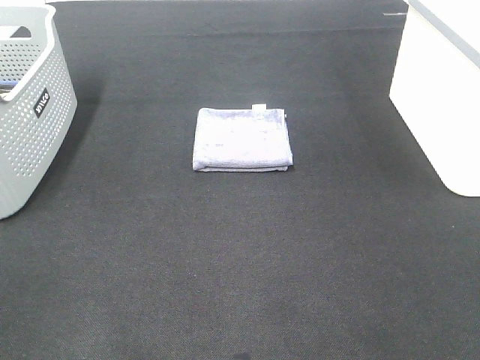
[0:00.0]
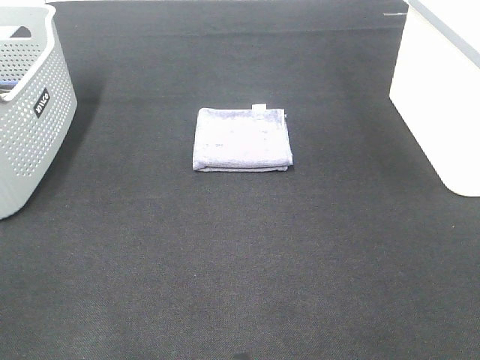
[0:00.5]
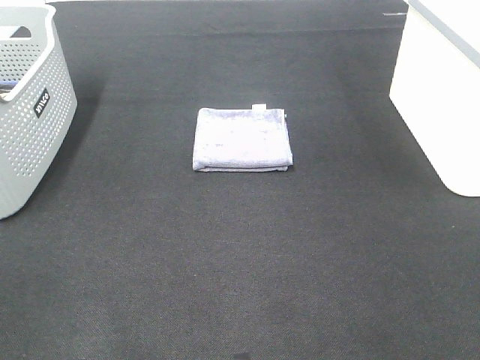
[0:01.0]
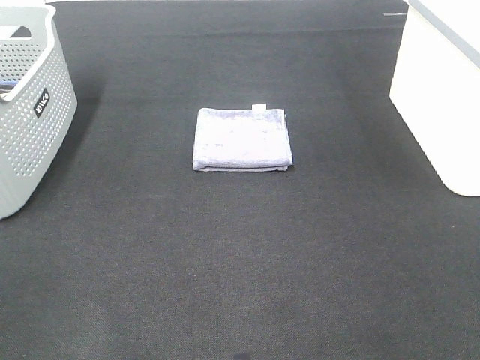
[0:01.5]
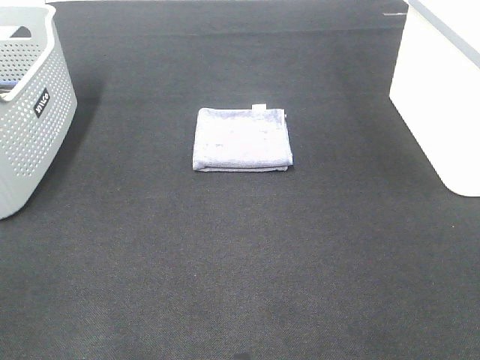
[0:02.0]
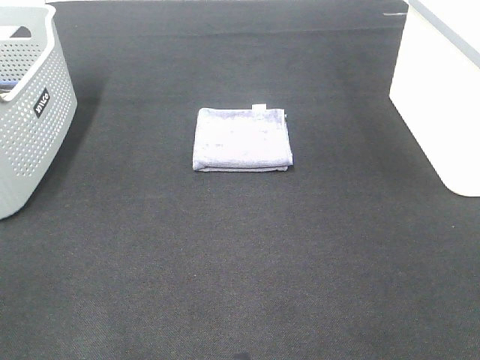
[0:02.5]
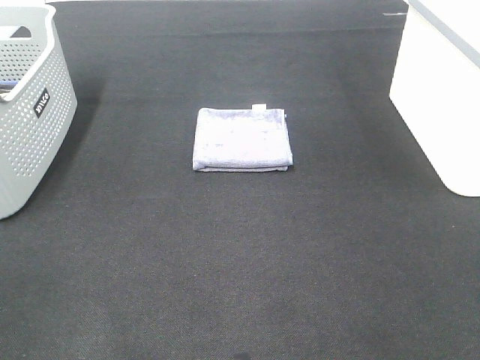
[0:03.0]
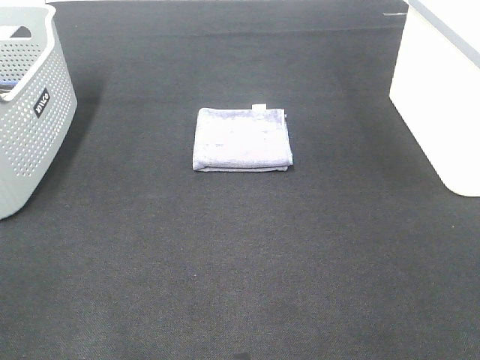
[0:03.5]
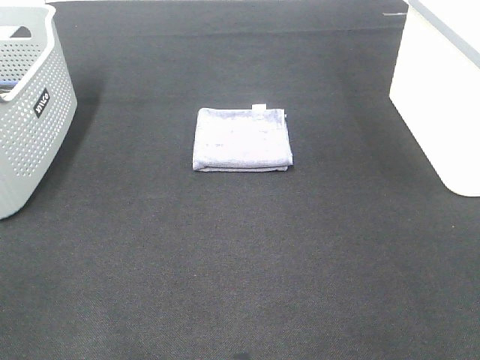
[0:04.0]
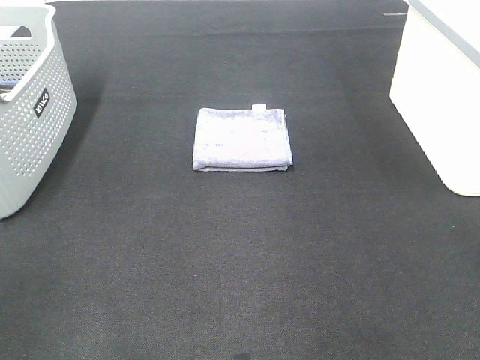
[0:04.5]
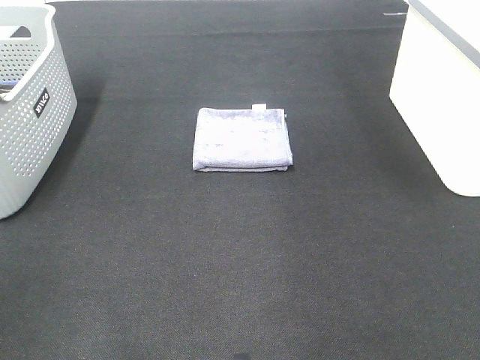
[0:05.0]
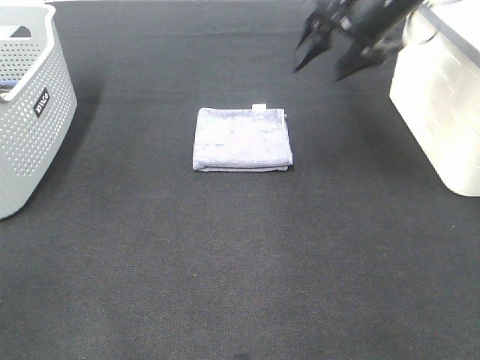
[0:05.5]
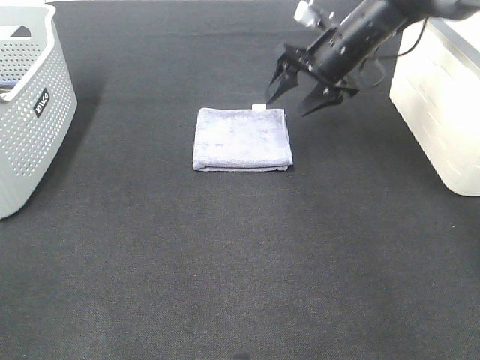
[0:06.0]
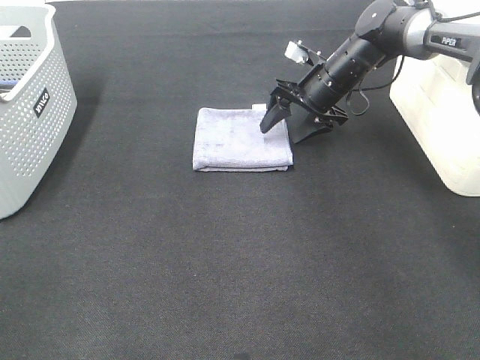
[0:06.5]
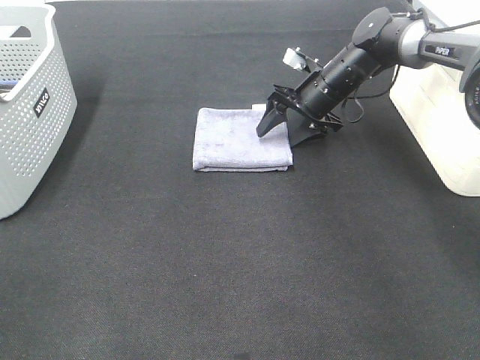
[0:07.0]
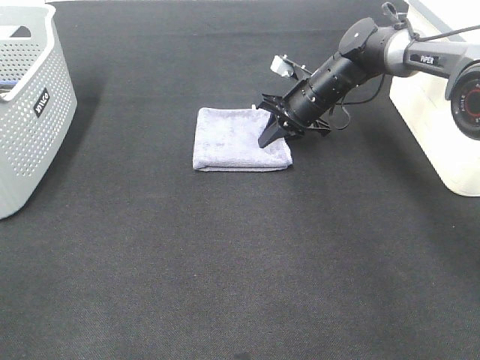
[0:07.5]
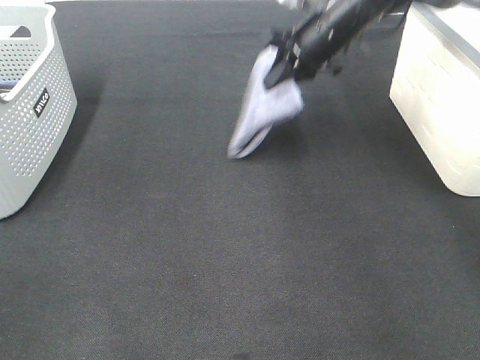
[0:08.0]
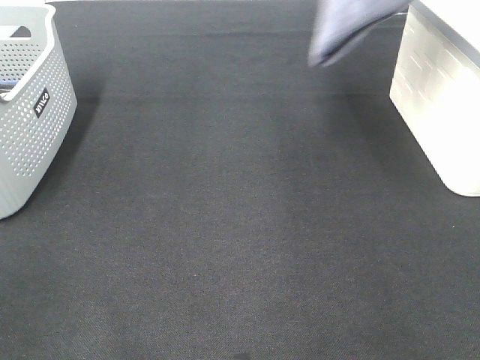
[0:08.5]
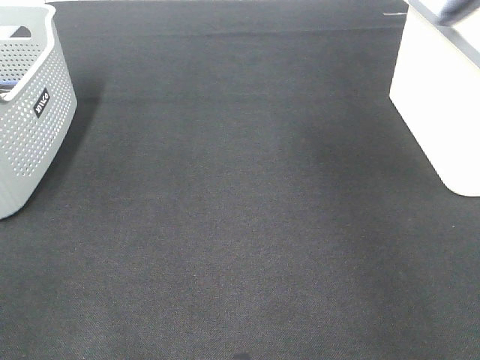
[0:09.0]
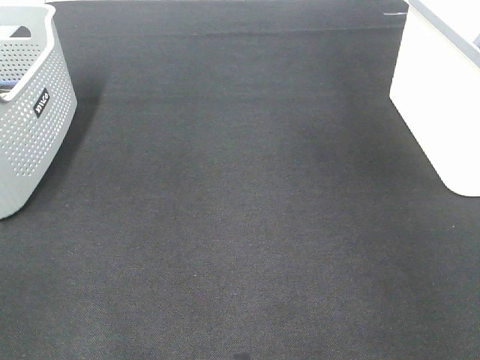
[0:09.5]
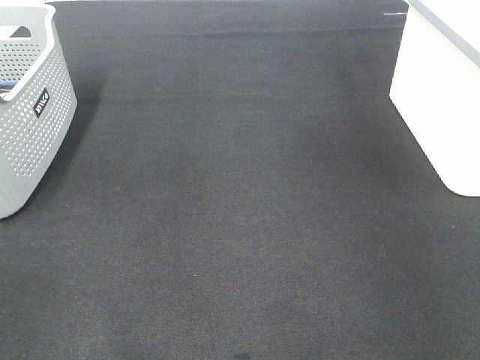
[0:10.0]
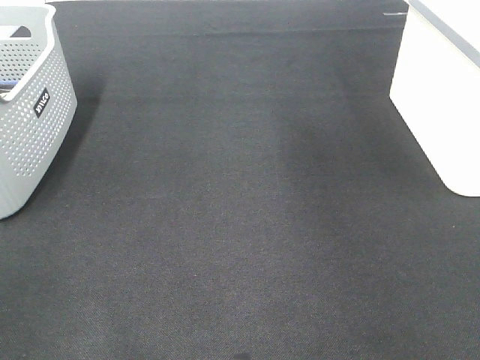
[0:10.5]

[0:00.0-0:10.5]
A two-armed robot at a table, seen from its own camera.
Step, 0:00.0 to 0:07.0: Right hand: grab the folded grey towel.
Step, 0:07.5 to 0:09.5: Right hand: place the grey towel in right basket.
0:00.0 to 0:02.0: Both grippers stay about where they are.
0:04.0 to 0:06.5: The right gripper moves forward and downward, roughly 50 cm.
0:06.5 to 0:08.5: The right gripper heads upward, covering some 25 cm, and closes.
0:08.5 to 0:10.5: The right gripper is displaced to the right by about 5 cm, and opens its fingers.

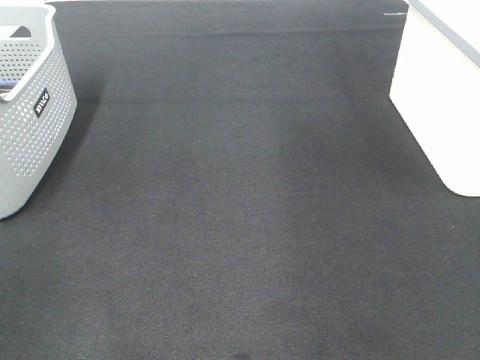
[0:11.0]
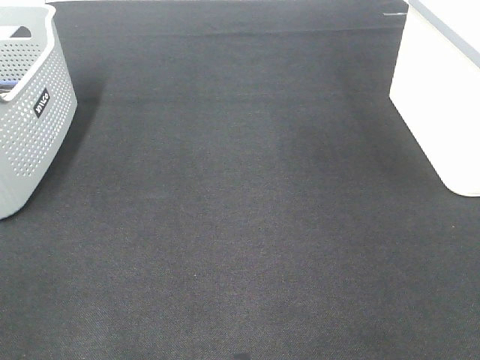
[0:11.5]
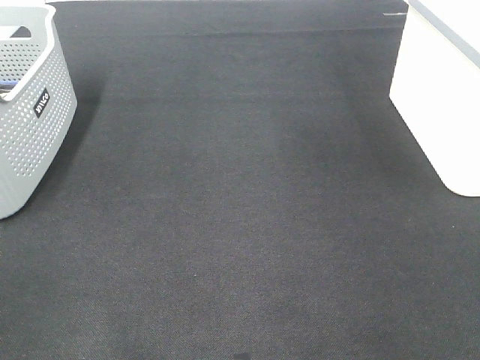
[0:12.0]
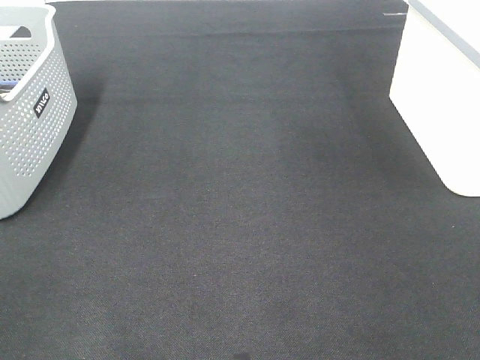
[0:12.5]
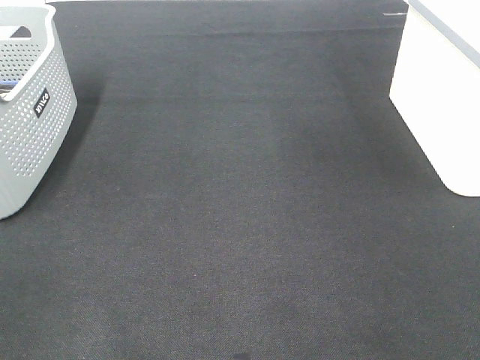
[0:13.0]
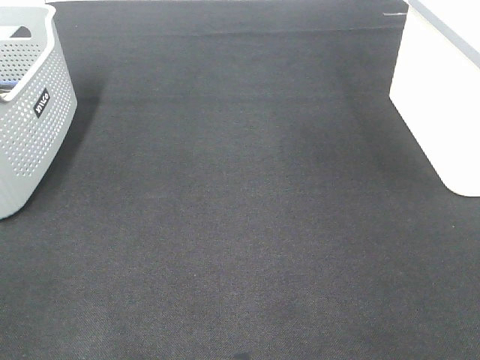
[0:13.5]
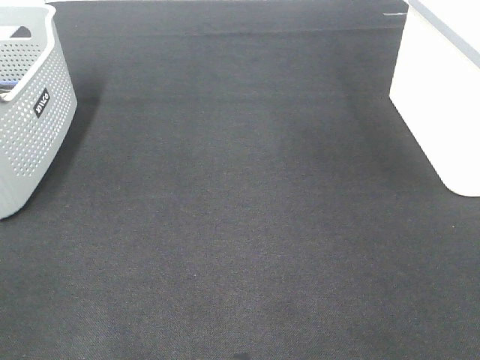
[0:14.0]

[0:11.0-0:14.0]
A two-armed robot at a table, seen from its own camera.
0:12.5 to 0:14.0: Both grippers stay put.

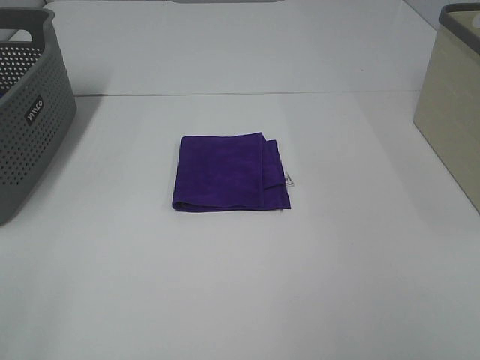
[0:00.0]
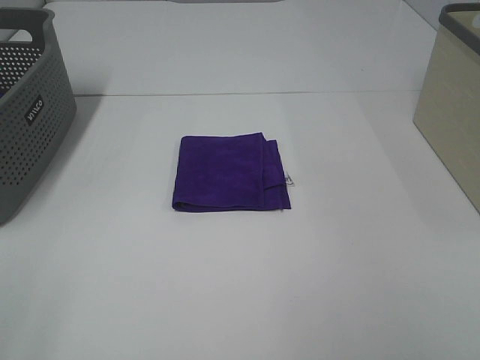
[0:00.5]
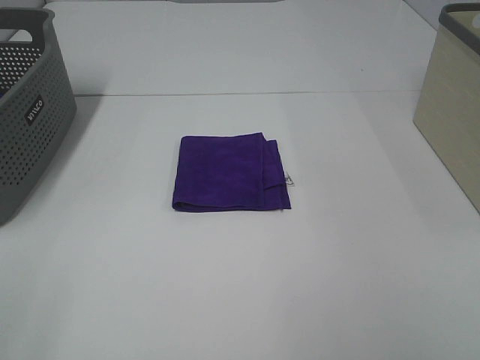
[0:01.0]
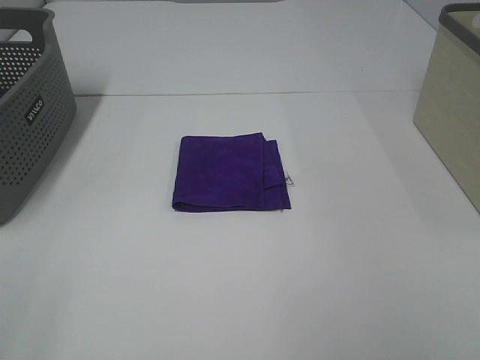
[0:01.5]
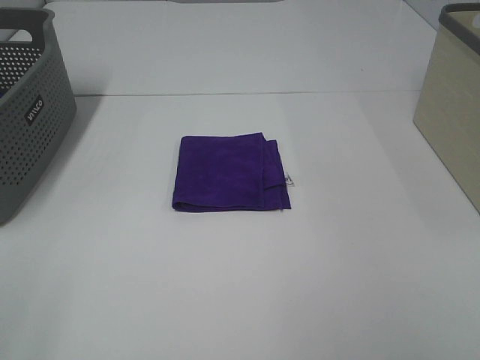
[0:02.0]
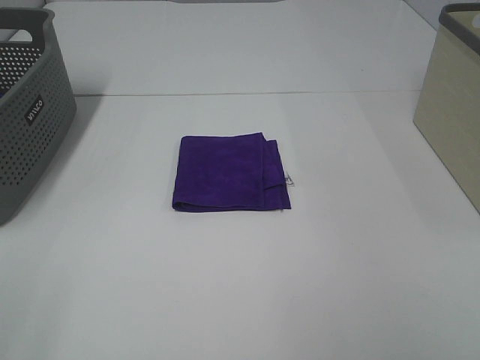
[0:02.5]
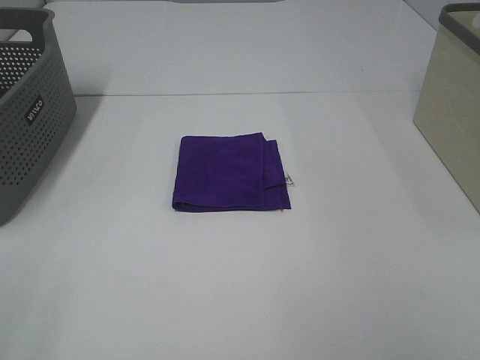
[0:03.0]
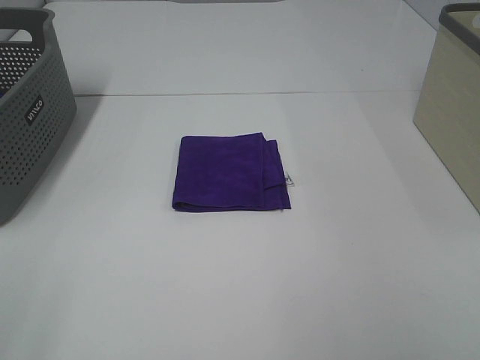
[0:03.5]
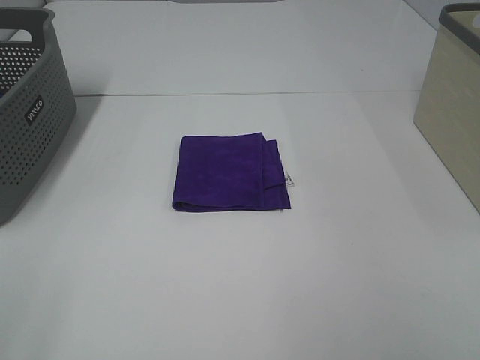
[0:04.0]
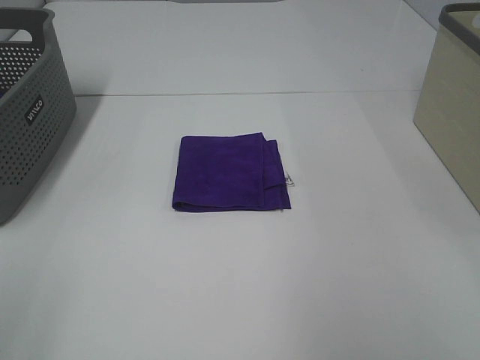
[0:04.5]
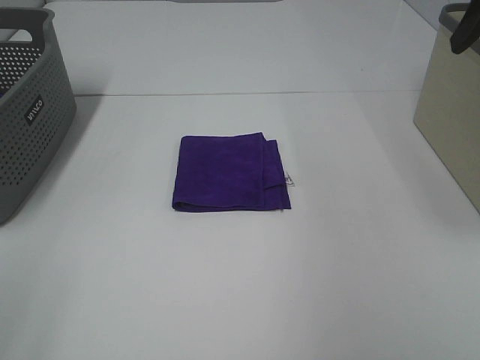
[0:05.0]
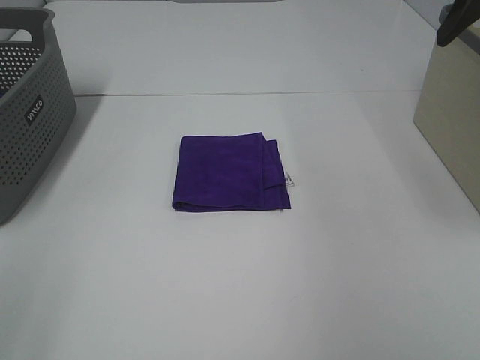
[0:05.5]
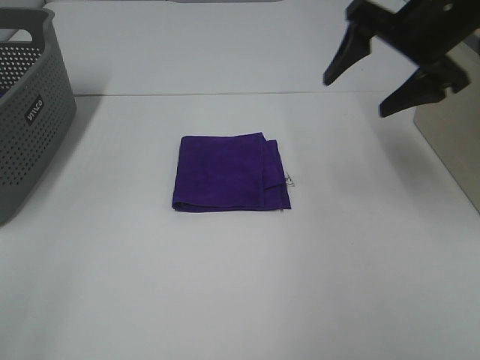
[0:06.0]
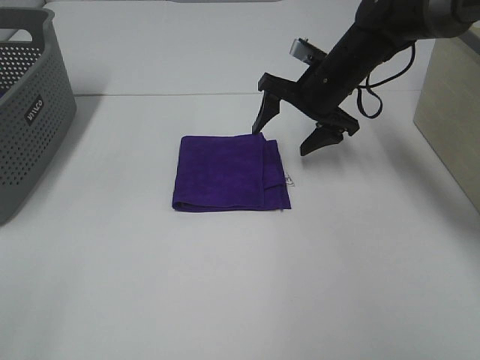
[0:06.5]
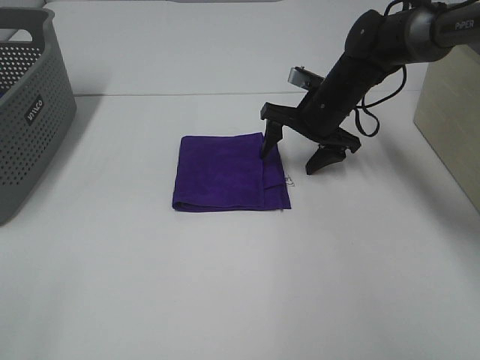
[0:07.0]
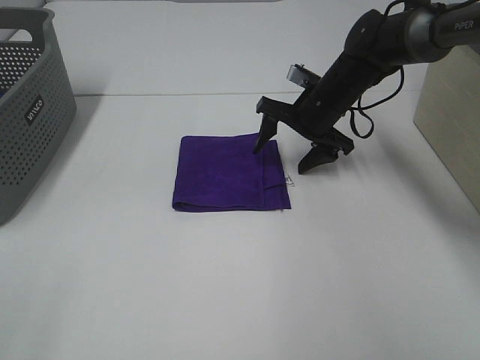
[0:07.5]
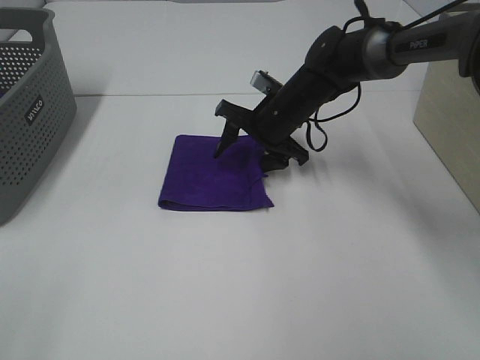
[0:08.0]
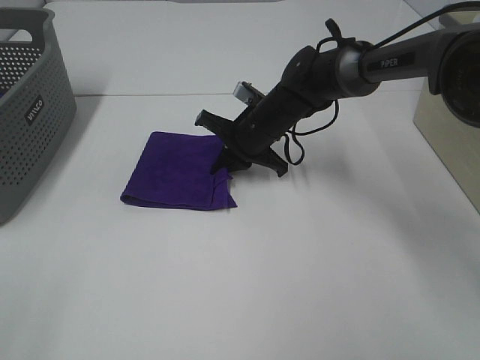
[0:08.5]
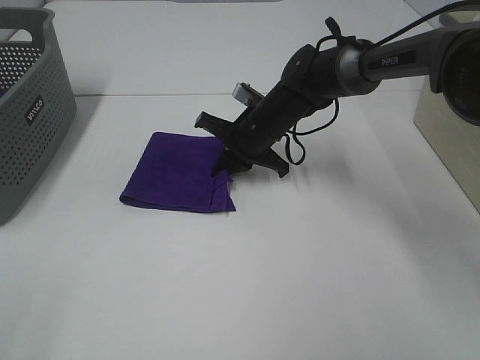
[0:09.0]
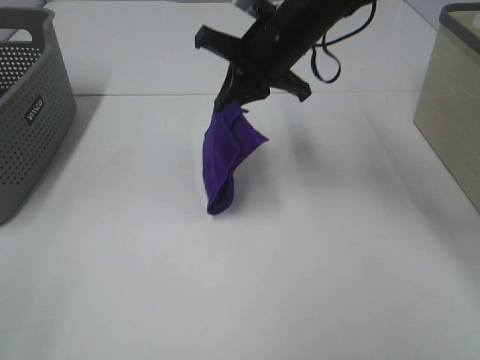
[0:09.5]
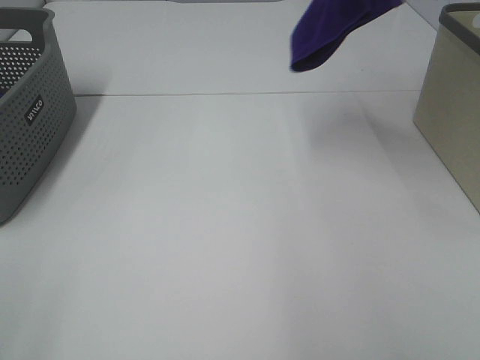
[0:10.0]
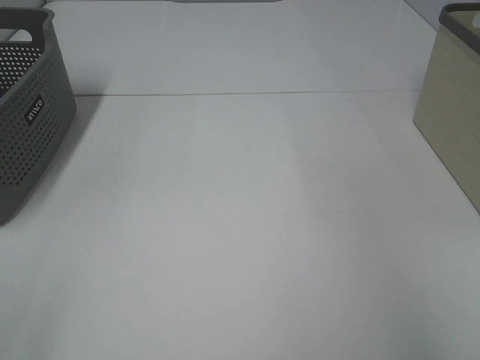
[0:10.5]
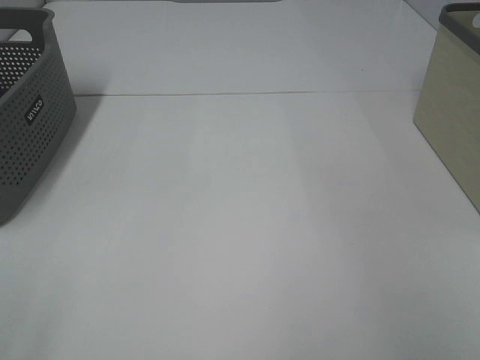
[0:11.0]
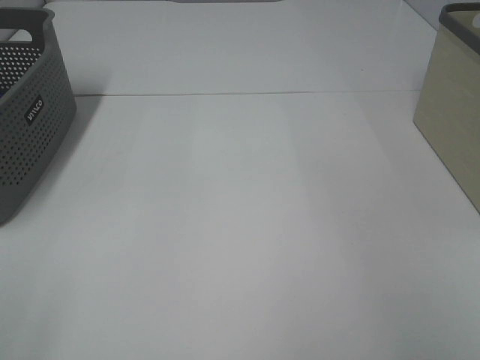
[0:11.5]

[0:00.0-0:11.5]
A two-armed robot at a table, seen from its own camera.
Step, 0:00.0 to 0:08.0: Right hand: grab the folded purple towel.
0:00.0 to 0:04.0: Neither gripper changes place.
0:04.0 to 0:06.0: The right gripper is displaced forward by some 35 cm.
0:06.0 to 0:07.5: The right gripper travels downward, forward and to the left by roughly 20 cm.
0:07.5 to 0:09.5: The right gripper heads upward and to the left, covering roughly 15 cm, and closes.
0:09.5 to 0:11.5: The right gripper moves to the right, roughly 40 cm, and opens up.

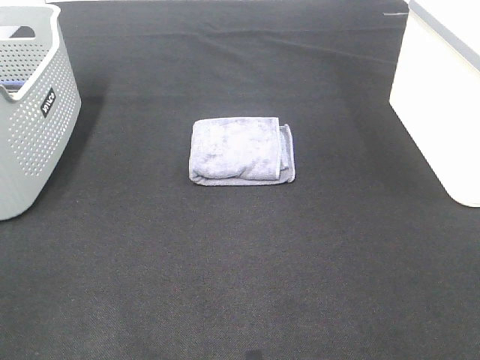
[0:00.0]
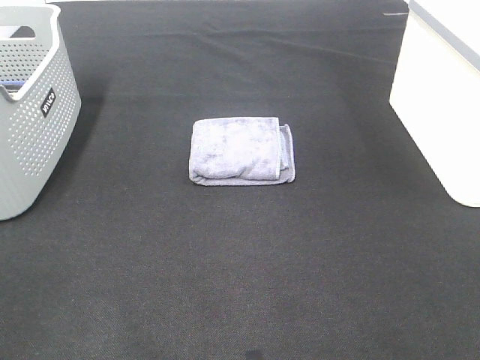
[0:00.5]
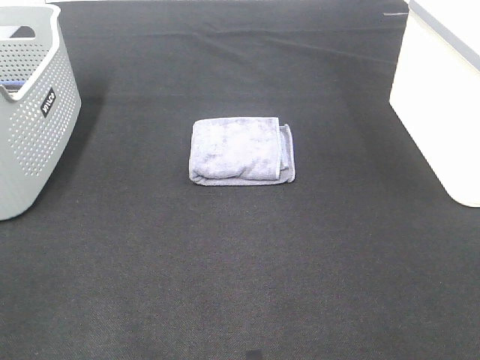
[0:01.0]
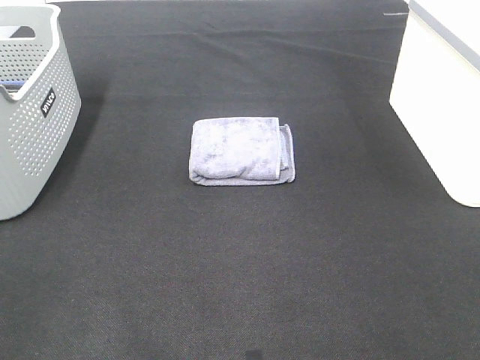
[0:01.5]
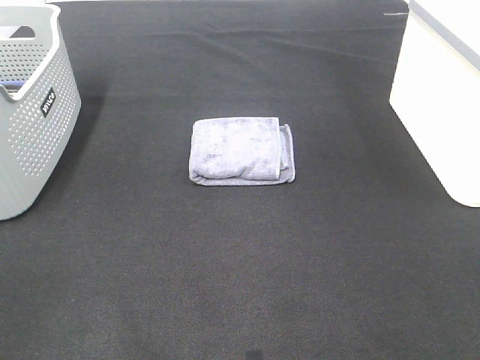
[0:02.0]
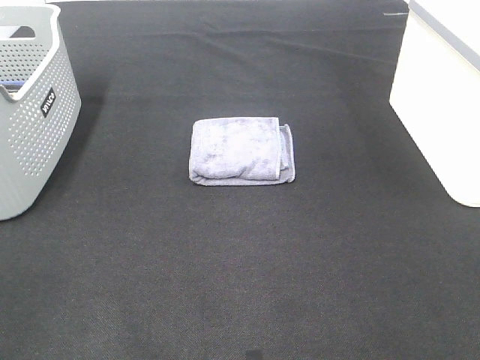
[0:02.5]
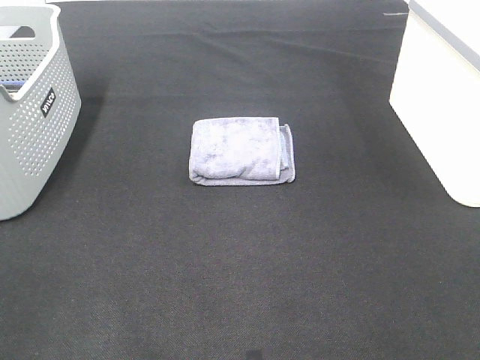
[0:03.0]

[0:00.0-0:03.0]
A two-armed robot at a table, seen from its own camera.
0:00.0 to 0:03.0: Both grippers stay about where they are.
